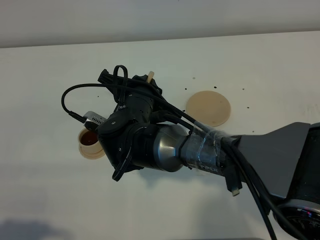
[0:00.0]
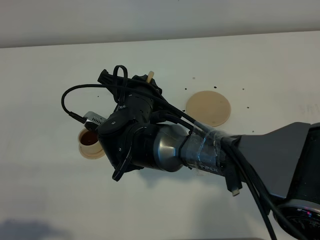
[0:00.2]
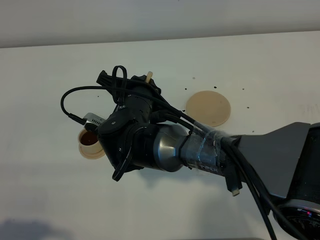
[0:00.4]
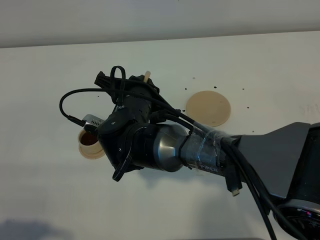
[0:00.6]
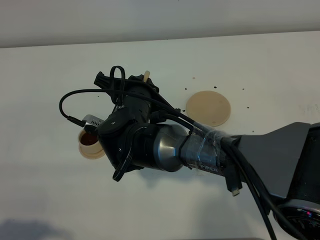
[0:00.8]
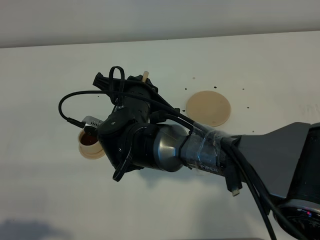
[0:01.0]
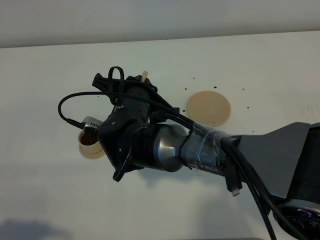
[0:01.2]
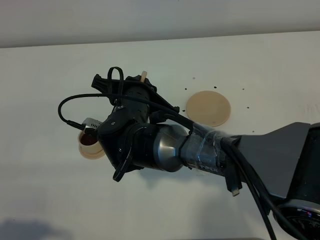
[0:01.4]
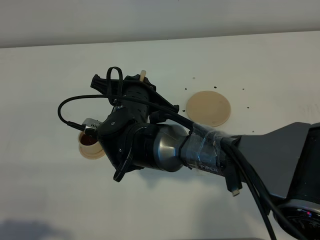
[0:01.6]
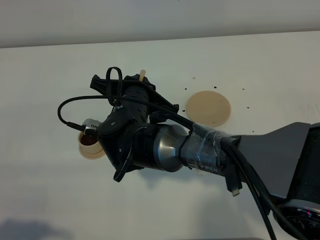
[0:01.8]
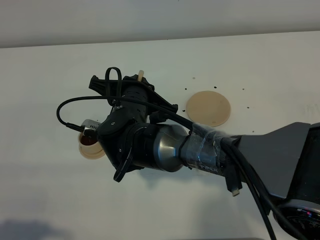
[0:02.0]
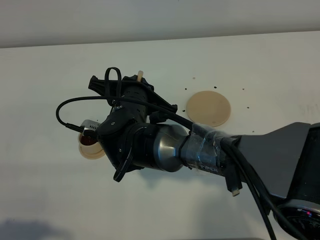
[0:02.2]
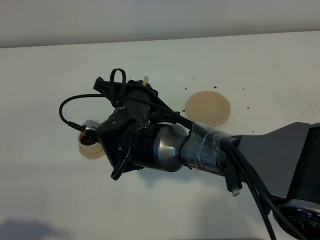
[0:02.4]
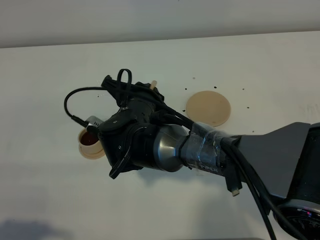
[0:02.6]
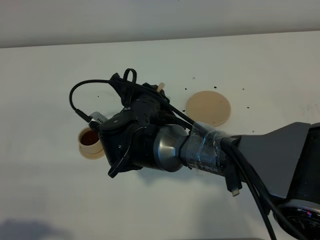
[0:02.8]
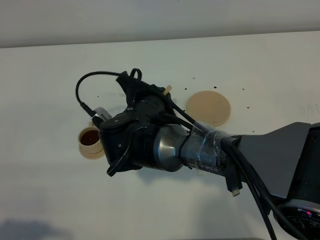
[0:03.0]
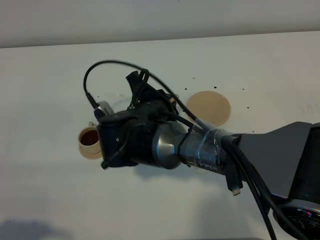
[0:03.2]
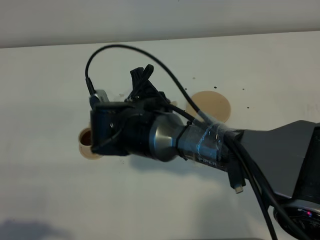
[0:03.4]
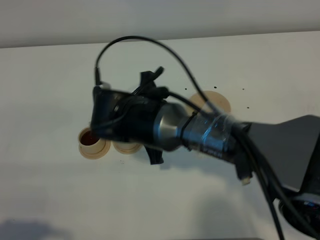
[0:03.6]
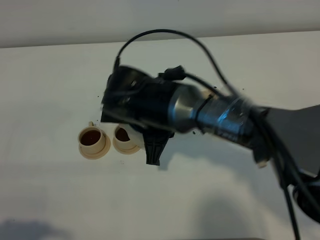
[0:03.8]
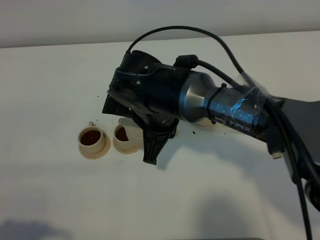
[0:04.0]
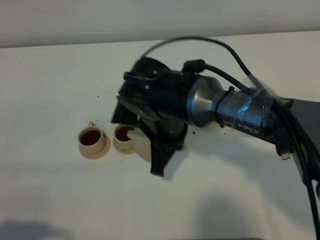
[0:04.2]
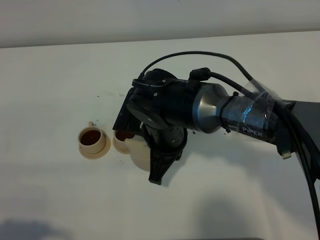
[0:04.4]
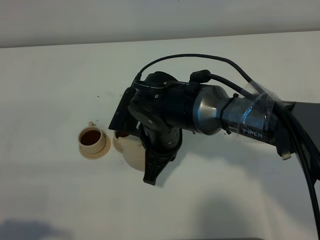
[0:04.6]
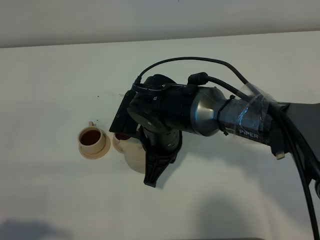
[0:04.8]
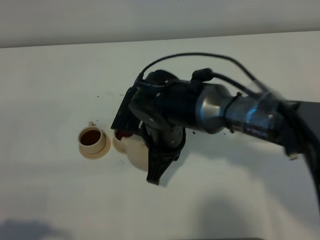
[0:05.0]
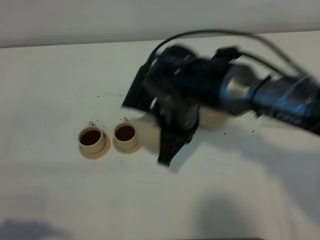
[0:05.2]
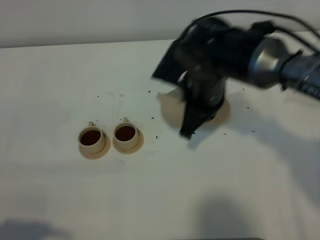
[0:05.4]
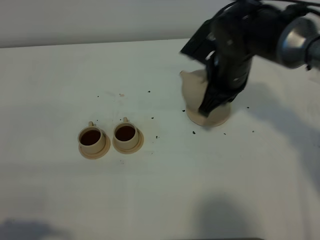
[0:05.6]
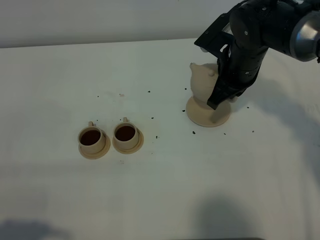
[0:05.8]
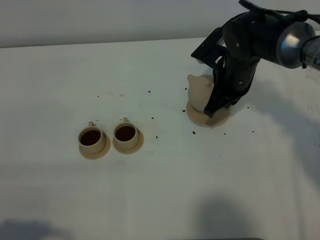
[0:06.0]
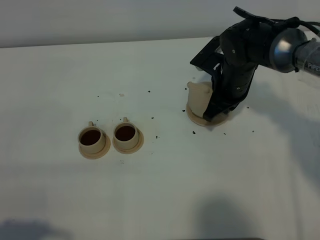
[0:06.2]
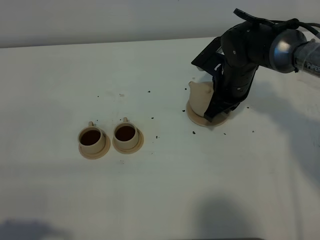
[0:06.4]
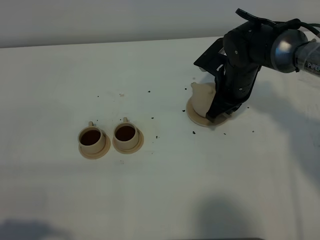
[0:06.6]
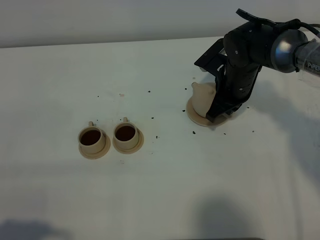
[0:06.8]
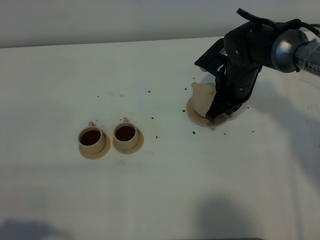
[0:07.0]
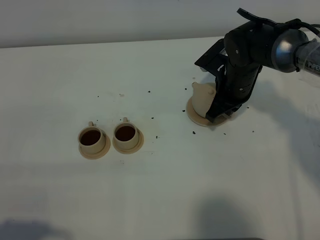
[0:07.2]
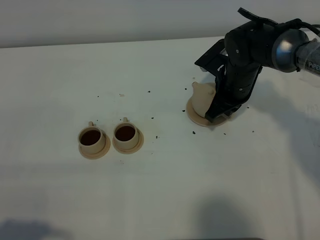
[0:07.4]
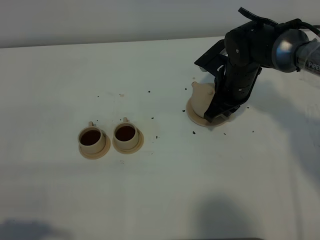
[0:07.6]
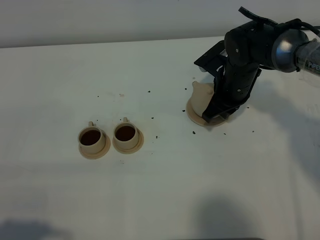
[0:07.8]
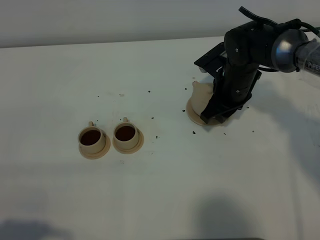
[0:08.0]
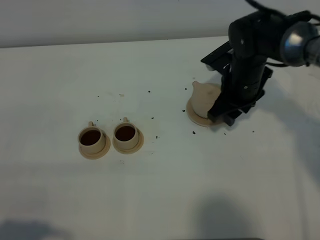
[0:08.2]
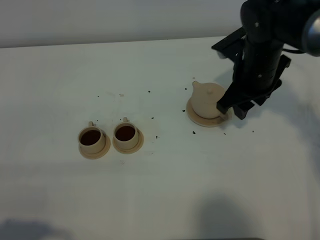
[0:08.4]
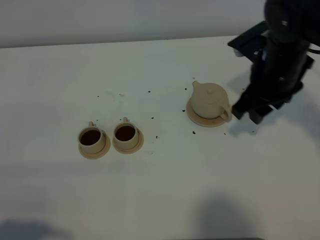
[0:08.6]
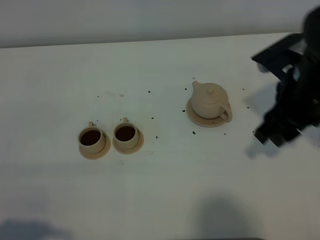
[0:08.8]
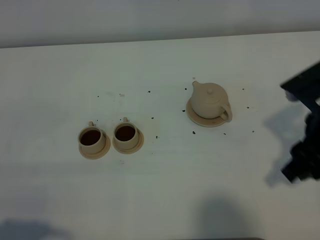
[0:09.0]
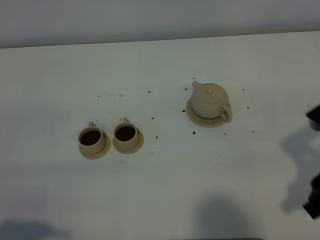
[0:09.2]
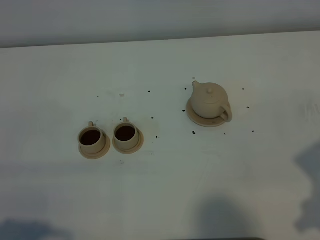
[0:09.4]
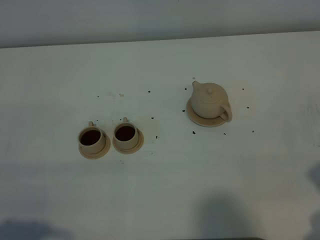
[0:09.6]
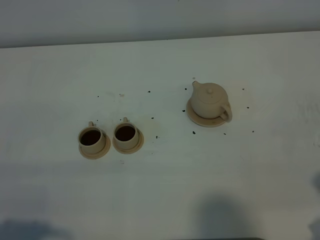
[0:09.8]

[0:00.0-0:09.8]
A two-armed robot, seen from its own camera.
Task of the whole recording: grasp the brown teapot and pour the tea into the two brown teacups one by one, put the brown teapot back in its original place.
Step, 0:00.0 to 0:03.2: Pour tea into the teacup with the right gripper.
0:00.0 to 0:02.8: The grippers move only a little.
0:04.2 to 0:05.6: The right gripper travels to the right and forward by about 15 cm.
0:05.6 to 0:07.0: The right gripper shifts about 5 cm downward.
0:07.0 to 0:08.4: The right gripper heads upward, covering some 10 cm, and opens.
0:08.4 to 0:09.8: The right gripper is displaced backward by some 30 cm.

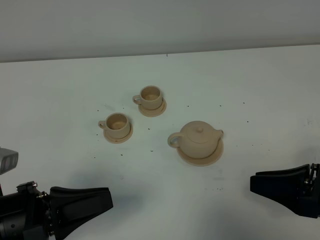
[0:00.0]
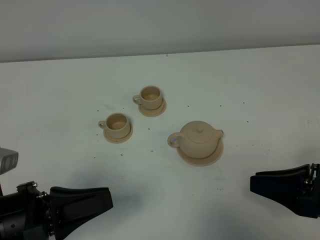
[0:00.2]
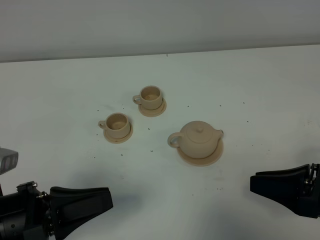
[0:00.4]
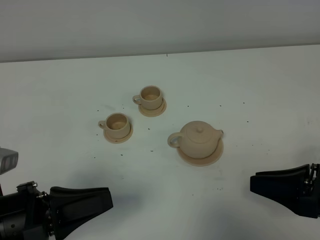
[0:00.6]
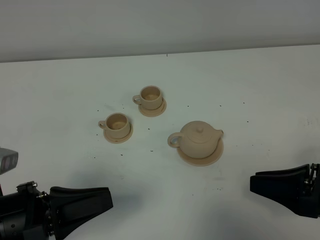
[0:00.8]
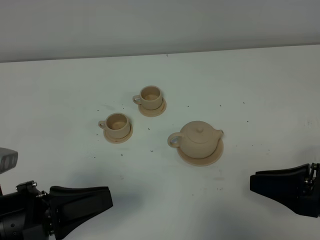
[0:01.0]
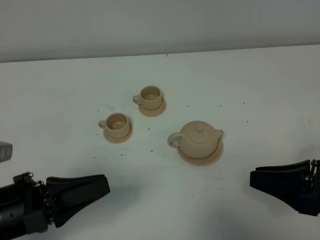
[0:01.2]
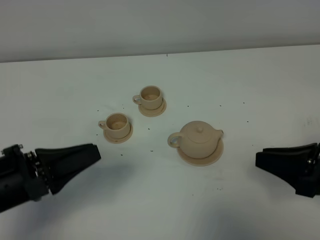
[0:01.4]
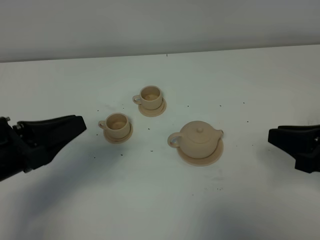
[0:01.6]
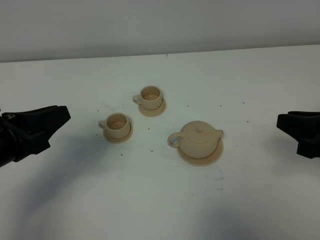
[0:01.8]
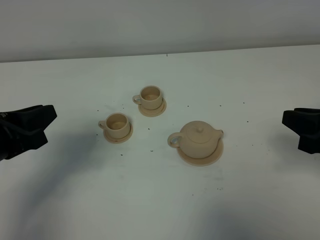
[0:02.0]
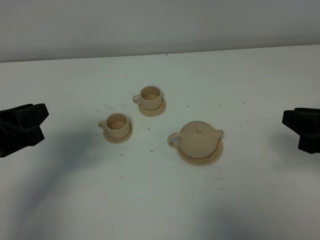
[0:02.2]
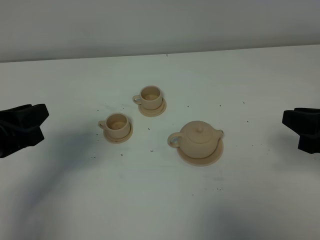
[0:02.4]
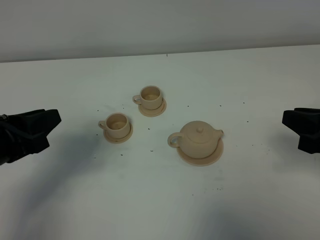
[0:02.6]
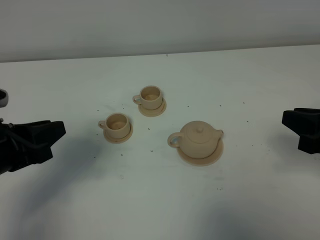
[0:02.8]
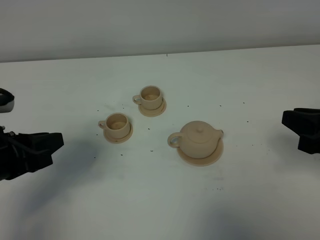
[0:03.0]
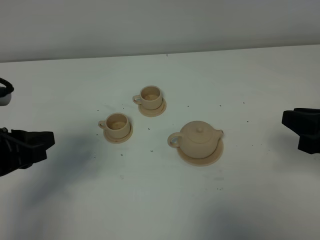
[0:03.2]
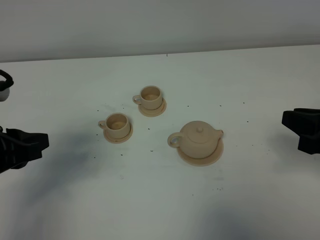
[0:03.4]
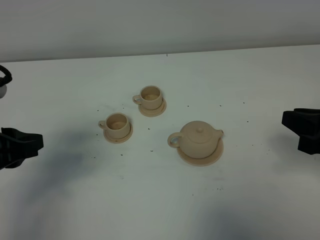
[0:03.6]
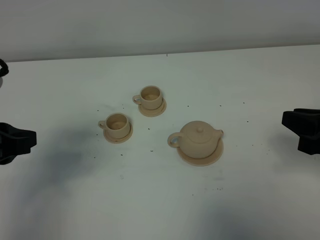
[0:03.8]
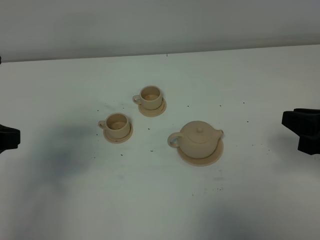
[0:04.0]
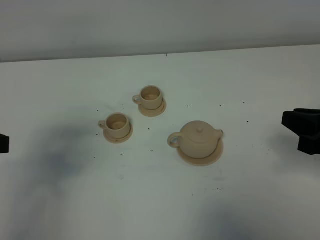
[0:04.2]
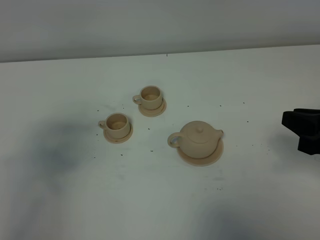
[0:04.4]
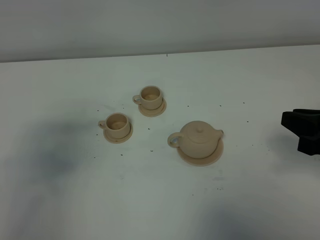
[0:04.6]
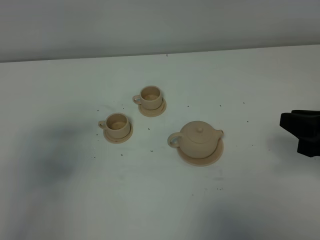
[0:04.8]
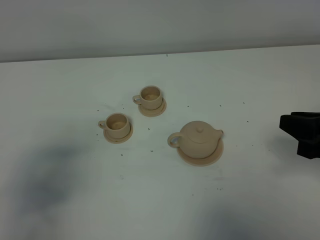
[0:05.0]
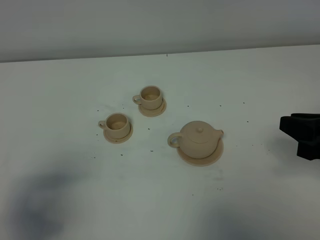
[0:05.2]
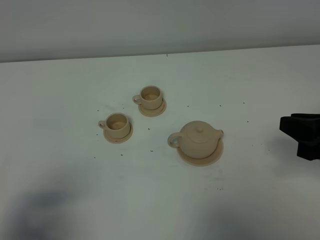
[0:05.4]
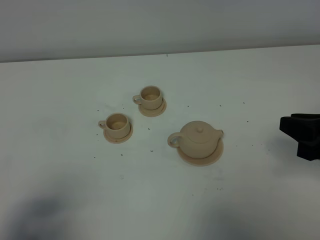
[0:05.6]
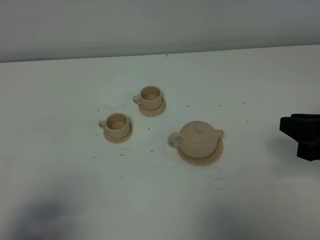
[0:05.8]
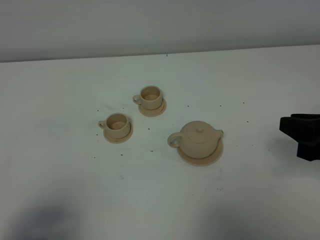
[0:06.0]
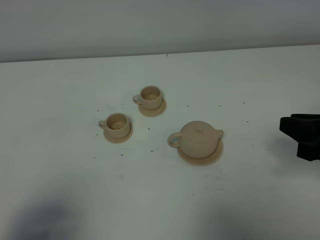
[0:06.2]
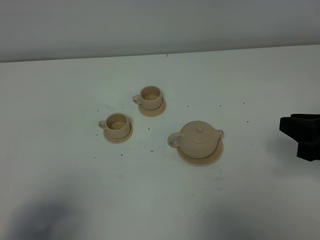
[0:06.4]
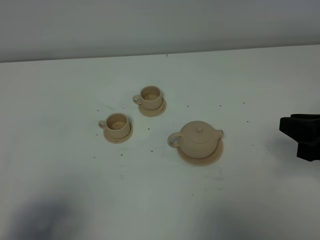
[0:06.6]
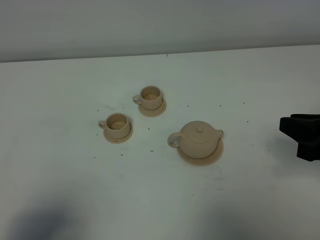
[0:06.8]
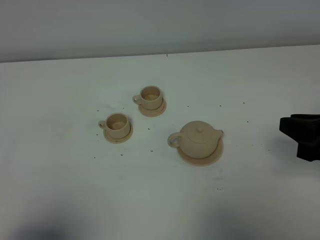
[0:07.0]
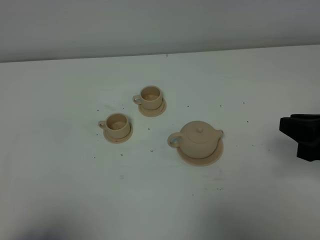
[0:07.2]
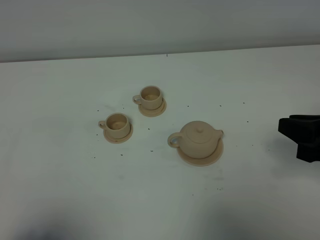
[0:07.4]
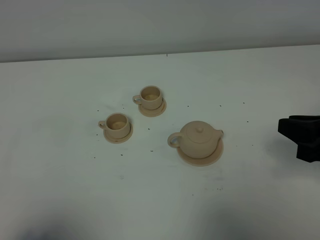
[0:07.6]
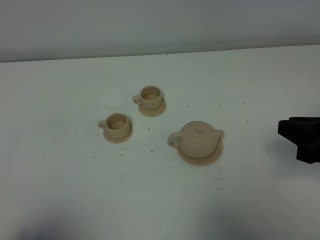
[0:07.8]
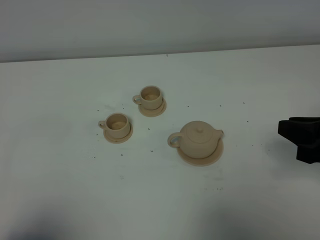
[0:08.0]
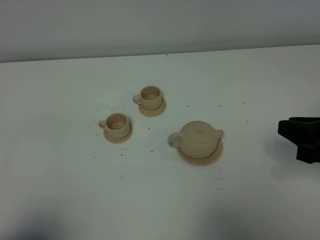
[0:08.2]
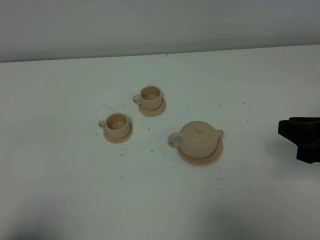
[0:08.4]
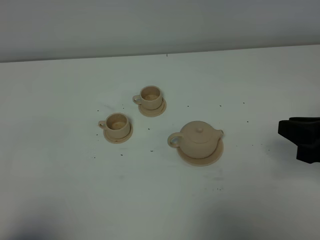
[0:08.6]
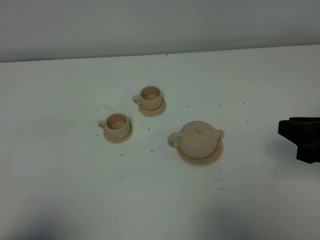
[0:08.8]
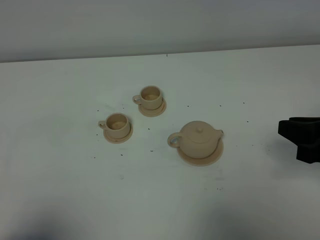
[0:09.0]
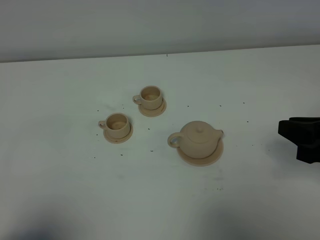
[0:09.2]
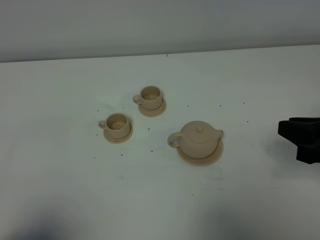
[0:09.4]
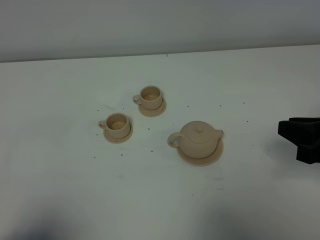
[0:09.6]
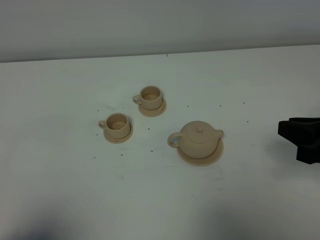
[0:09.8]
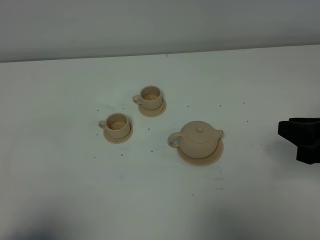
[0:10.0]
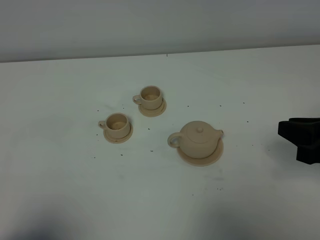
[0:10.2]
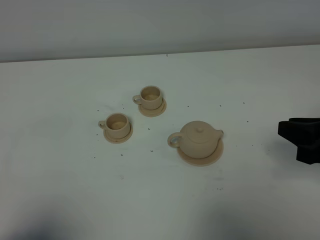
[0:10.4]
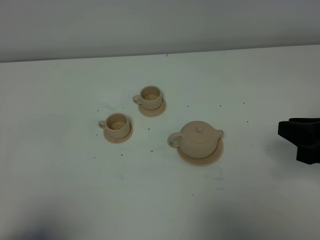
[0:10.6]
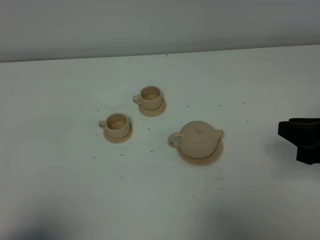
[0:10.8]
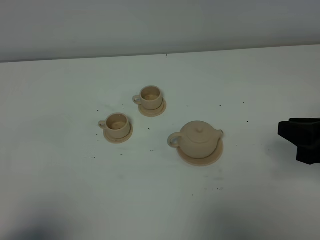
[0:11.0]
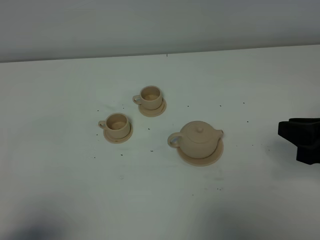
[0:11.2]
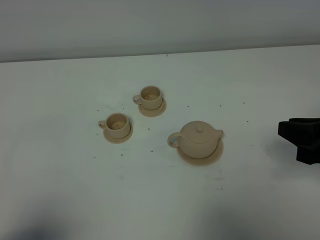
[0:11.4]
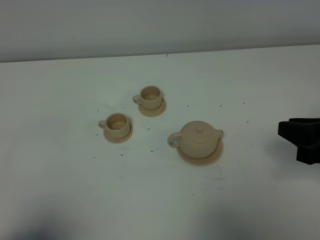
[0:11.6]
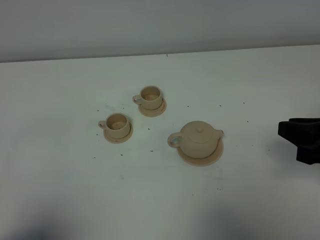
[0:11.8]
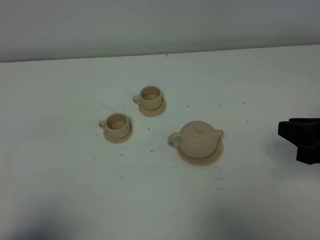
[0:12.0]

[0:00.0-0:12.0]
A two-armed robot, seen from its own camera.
Task of the whole recording: grasp the brown teapot and pour the tea into the two brown teacups one by one, put the brown teapot back in its original place.
0:00.0 to 0:01.6: The left gripper travels forward and upward by some 10 cm.
0:01.6 to 0:03.0: The left gripper opens.
0:03.0 to 0:04.4: The left gripper travels upward by about 10 cm.
0:04.4 to 0:06.0: The left gripper moves backward and downward, about 15 cm.
0:09.0 to 0:10.4: The two grippers keep their place.
